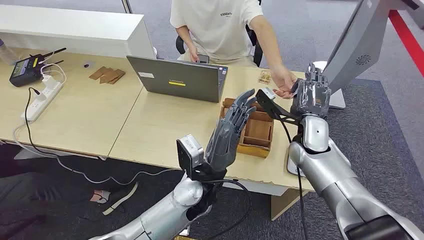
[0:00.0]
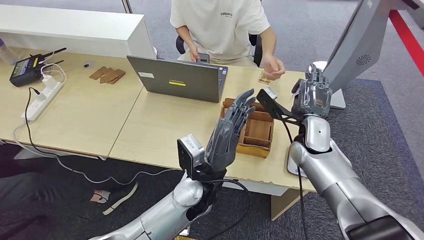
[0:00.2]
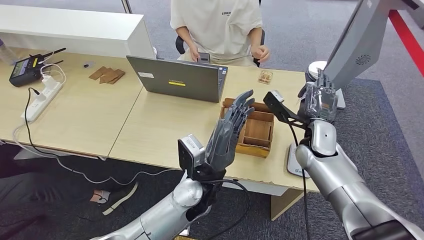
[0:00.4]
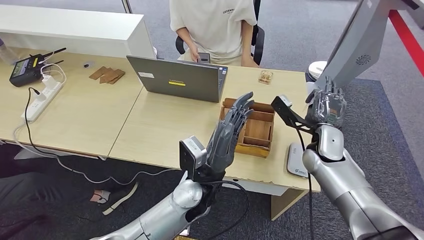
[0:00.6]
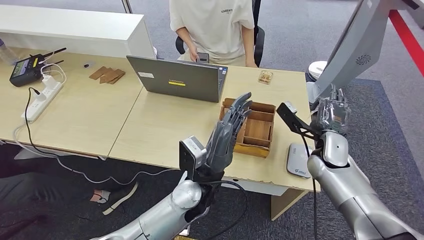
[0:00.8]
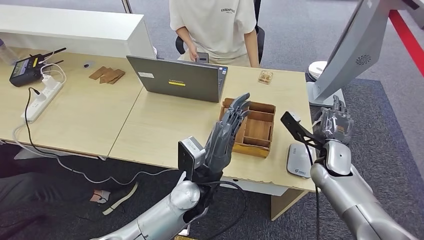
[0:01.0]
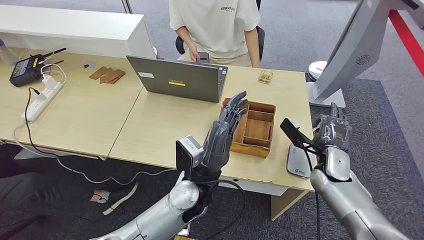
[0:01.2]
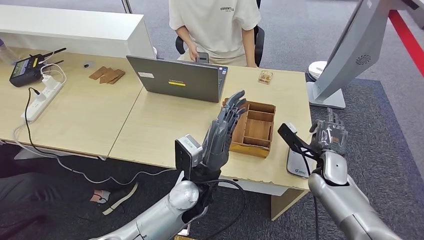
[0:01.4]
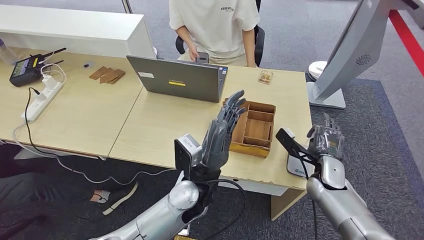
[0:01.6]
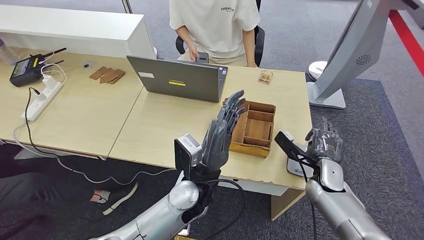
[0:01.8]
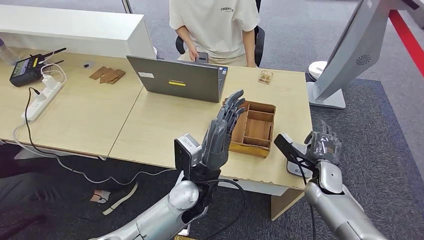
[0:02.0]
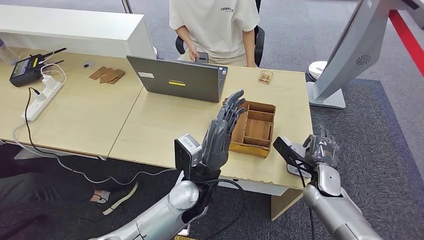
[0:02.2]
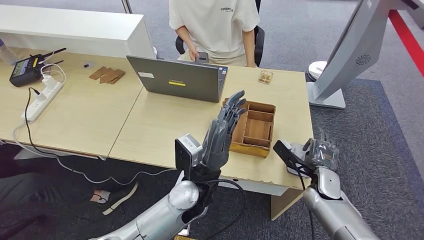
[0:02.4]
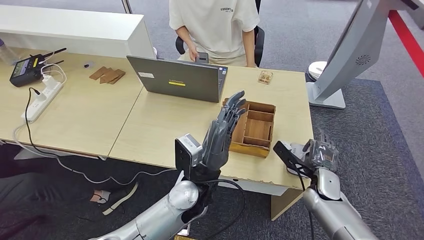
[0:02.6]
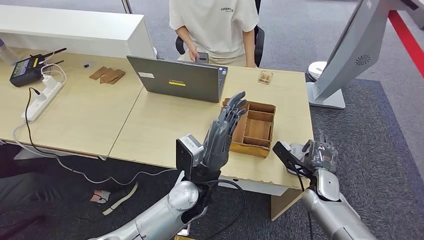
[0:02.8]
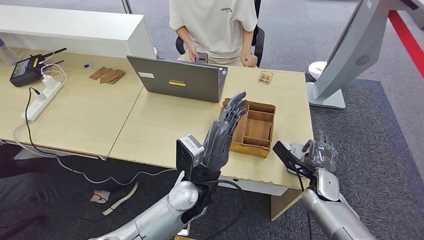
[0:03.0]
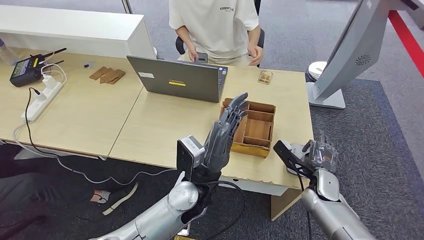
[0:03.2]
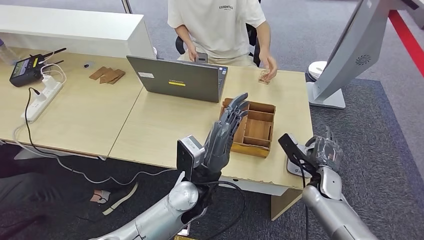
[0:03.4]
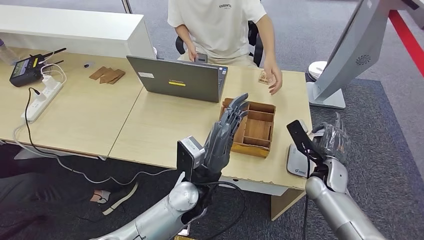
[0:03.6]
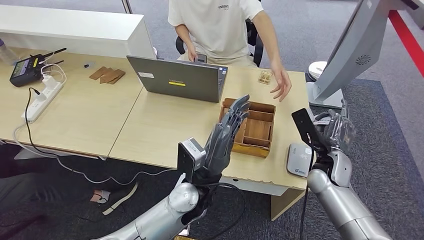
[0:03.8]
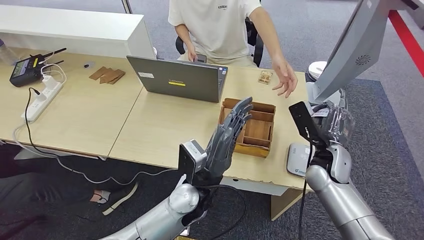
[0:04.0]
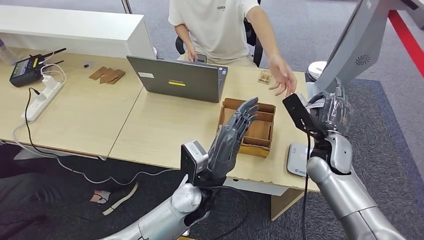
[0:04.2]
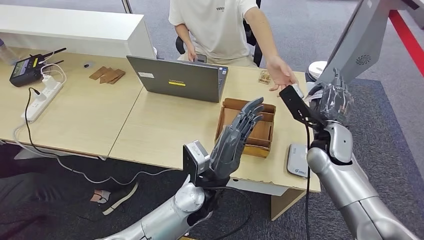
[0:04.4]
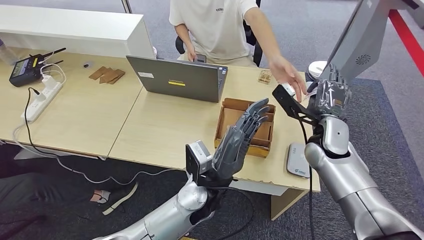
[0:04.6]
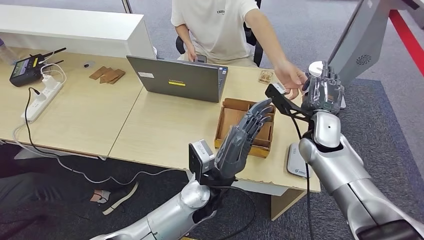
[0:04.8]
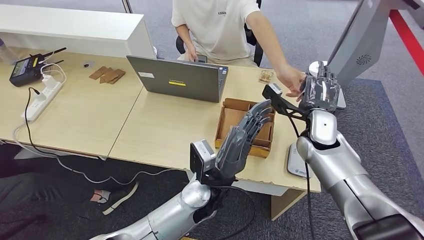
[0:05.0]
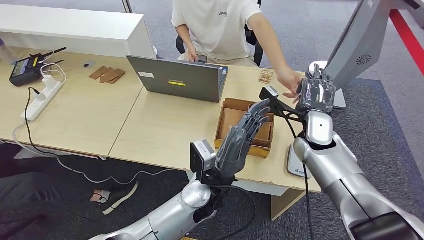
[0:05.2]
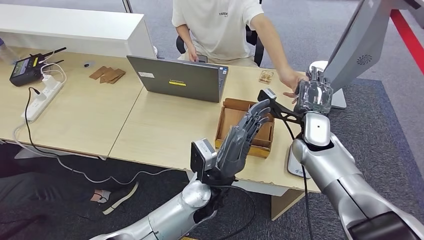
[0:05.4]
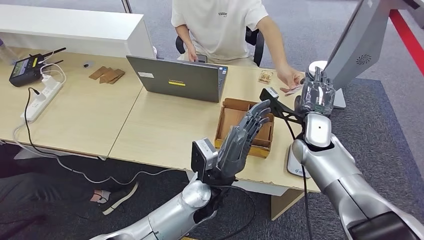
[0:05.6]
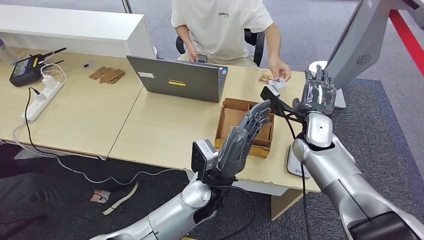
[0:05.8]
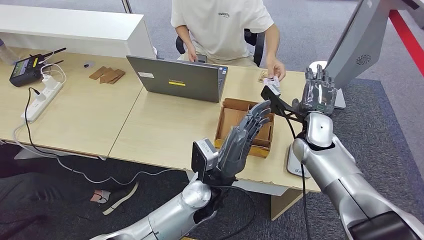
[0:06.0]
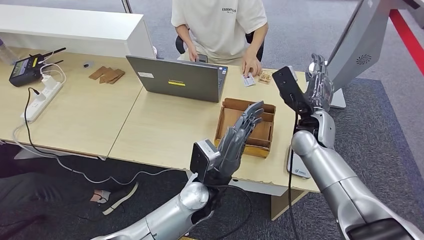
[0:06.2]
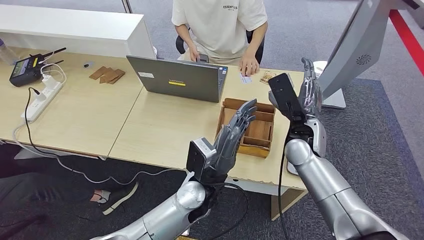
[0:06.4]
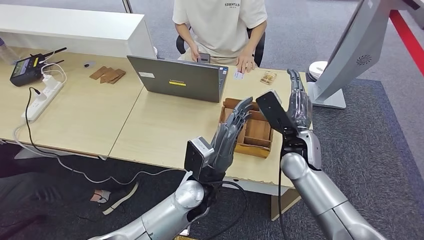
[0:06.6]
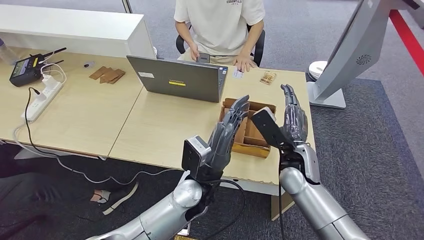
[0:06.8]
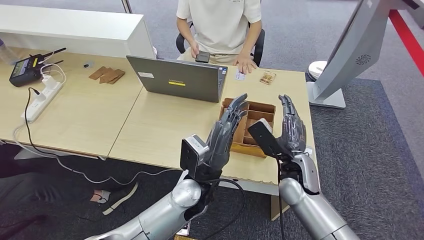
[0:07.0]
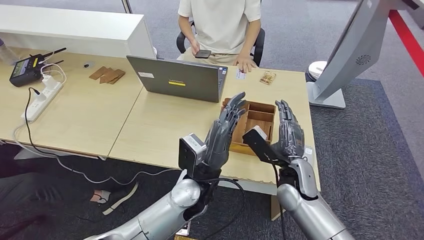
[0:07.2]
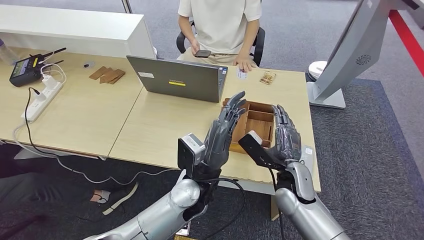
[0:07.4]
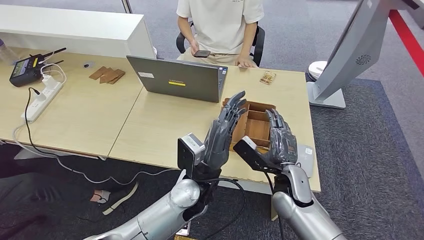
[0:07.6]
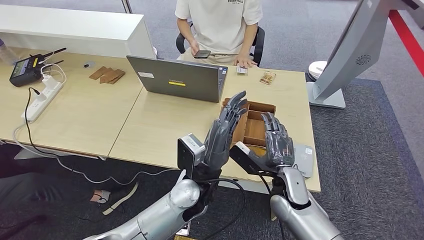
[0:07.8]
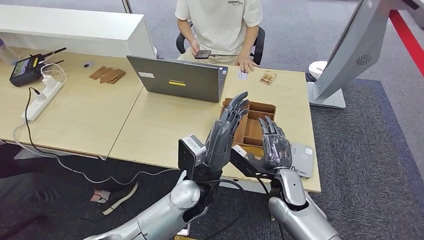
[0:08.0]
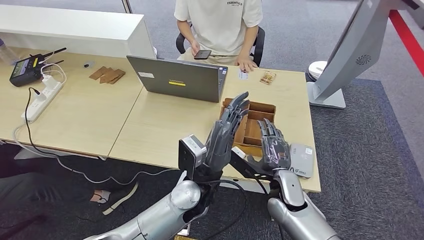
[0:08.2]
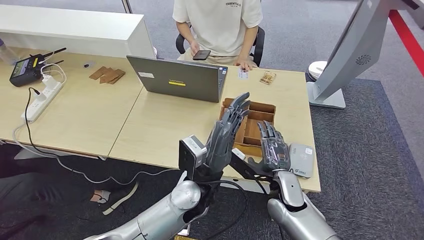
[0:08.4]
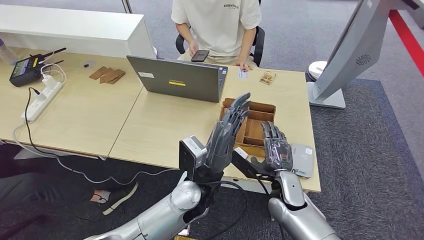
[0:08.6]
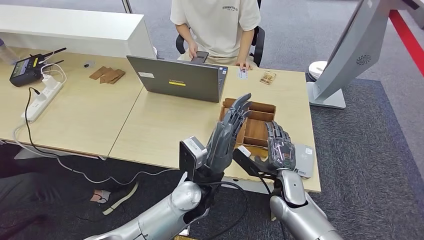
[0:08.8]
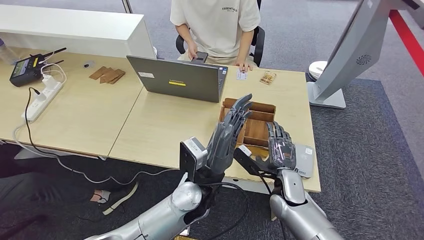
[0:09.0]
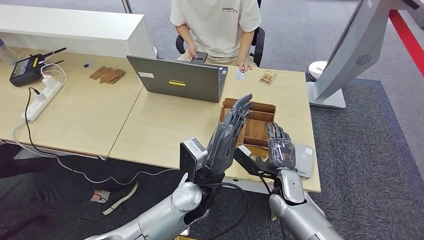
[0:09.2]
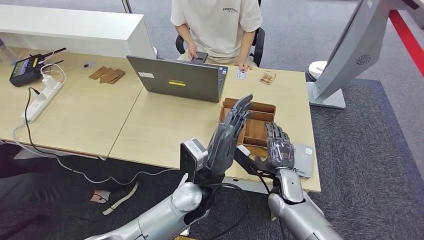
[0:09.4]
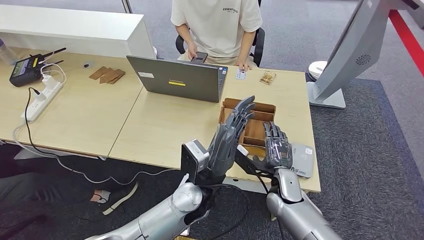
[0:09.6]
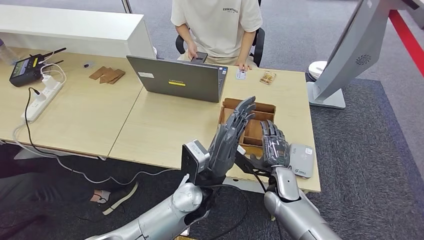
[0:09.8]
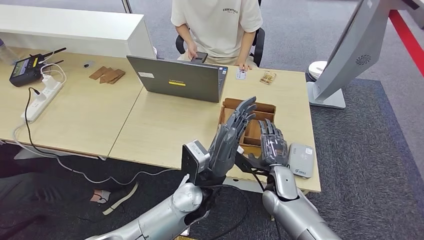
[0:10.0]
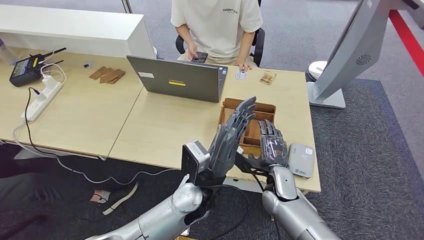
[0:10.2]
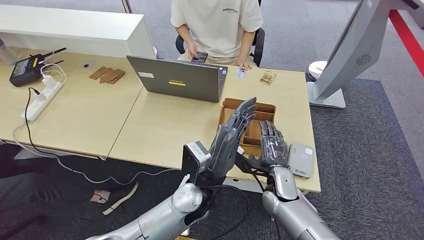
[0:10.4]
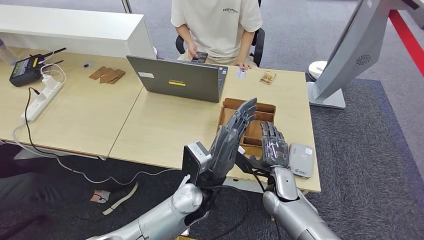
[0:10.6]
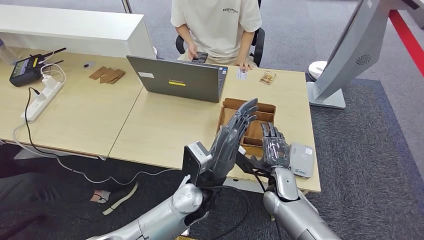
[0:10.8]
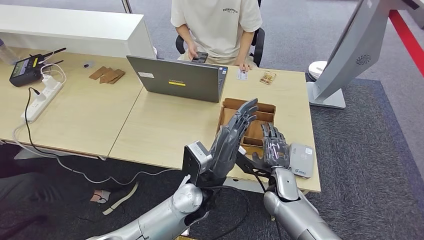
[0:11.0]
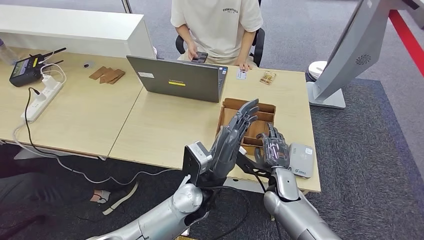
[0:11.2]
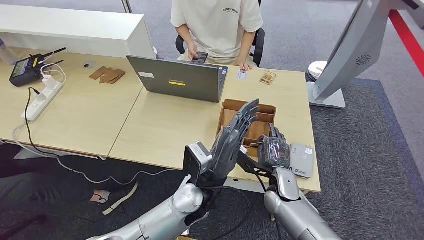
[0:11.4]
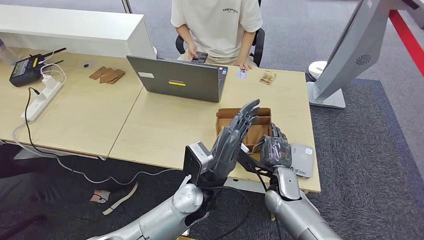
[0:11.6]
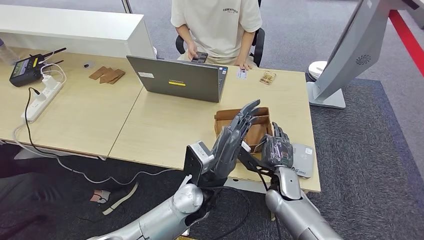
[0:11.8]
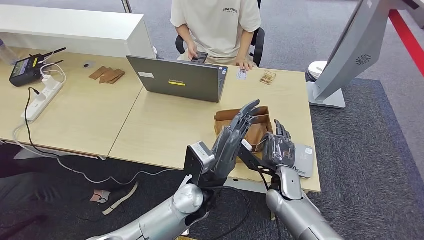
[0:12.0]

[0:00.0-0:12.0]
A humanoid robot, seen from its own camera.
Step, 0:00.0 to 0:01.0: Take the ID card from the person's hand.
Step, 0:01.2 to 0:04.0: Place the ID card on the card reader.
Step, 0:04.2 to 0:06.4: Hand the ID card to the person.
0:01.6 to 0:03.0: The hands move only a little.
0:03.0 to 0:04.4: The right hand heads upward, covering about 15 cm.
0:07.6 to 0:12.0: The hands move only a little.

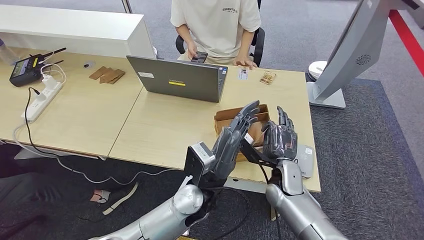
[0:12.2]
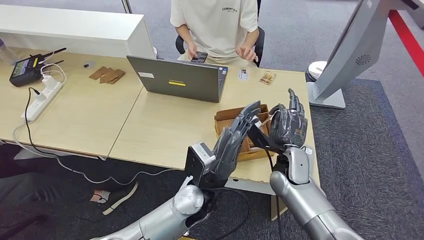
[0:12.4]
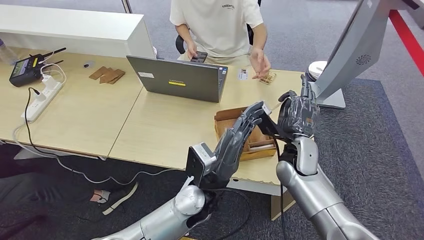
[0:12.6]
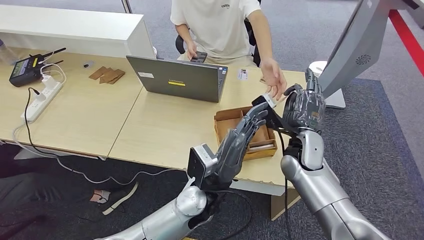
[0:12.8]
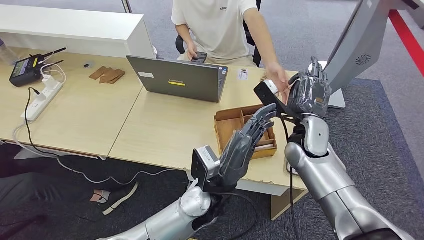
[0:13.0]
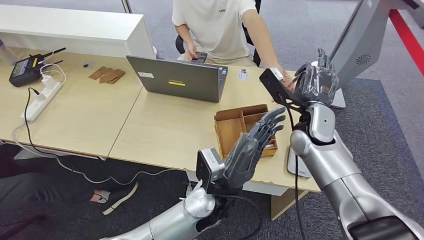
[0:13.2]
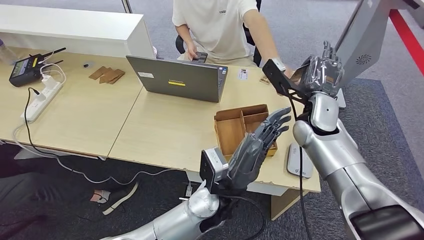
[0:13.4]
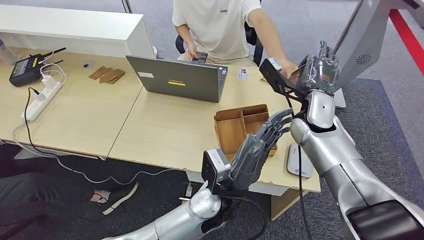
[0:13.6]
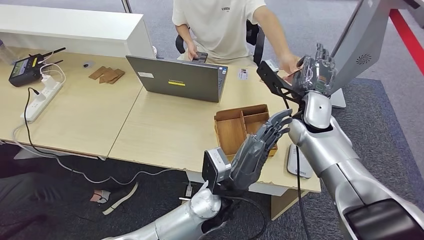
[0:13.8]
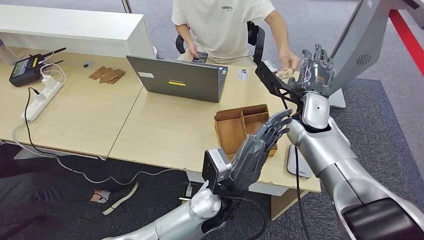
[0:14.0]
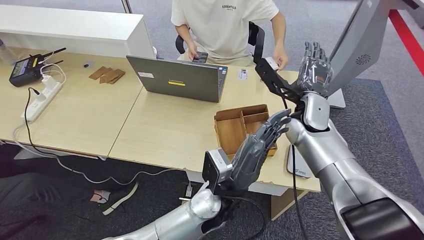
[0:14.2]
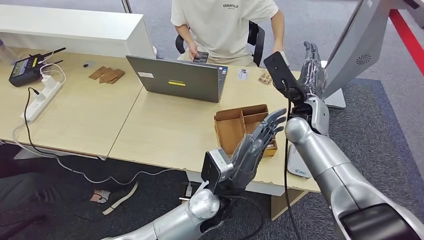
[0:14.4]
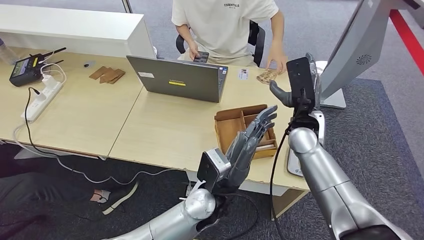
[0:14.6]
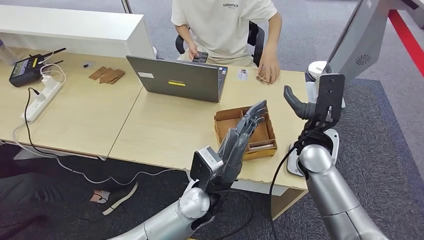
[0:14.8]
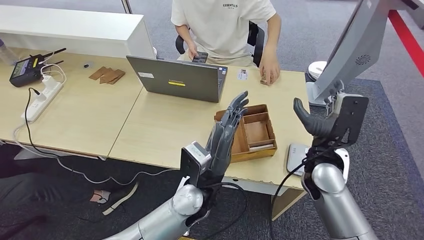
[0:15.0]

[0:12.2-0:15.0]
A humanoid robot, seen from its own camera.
Step, 0:13.0 to 0:15.0: Hand the room key to the person.
